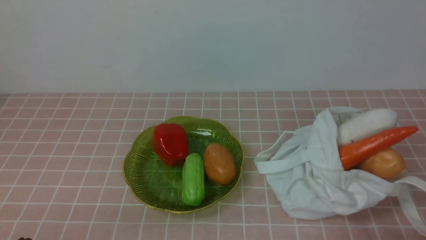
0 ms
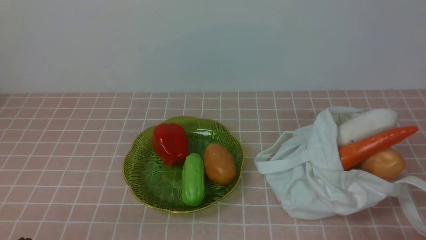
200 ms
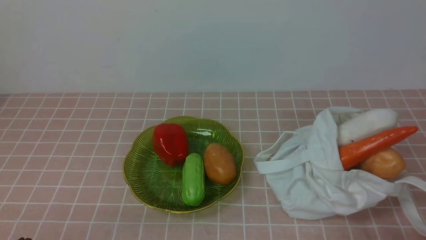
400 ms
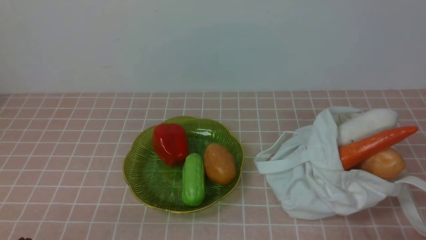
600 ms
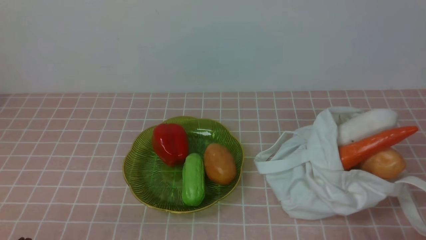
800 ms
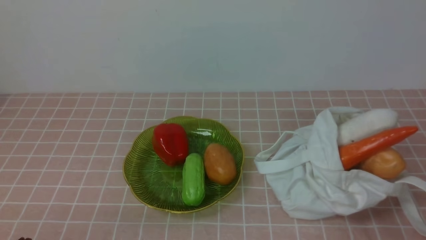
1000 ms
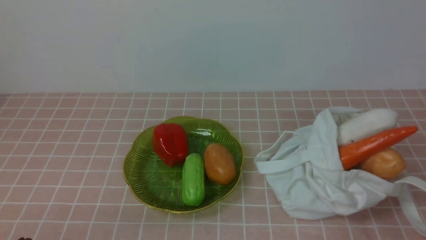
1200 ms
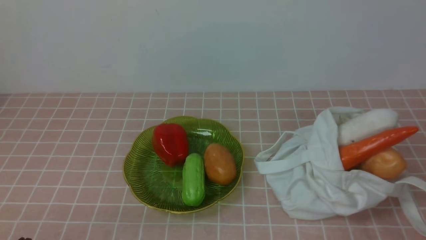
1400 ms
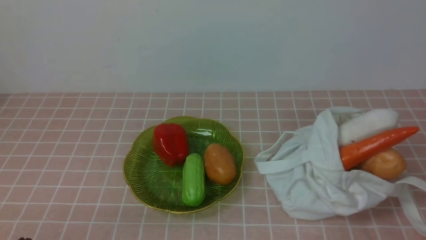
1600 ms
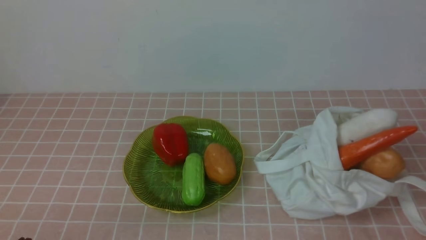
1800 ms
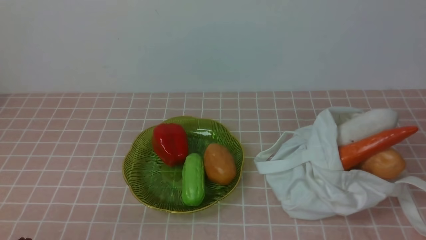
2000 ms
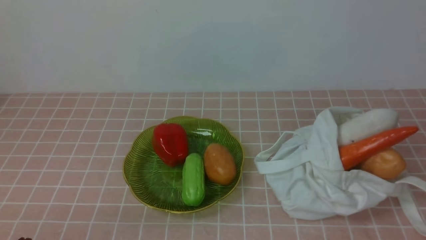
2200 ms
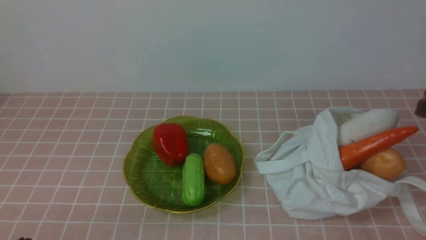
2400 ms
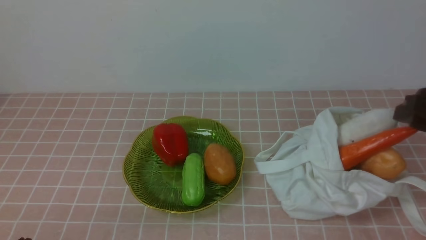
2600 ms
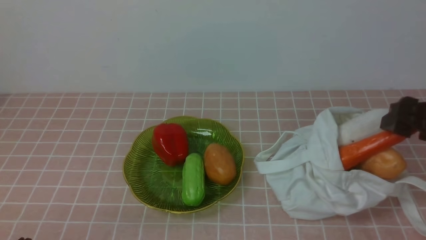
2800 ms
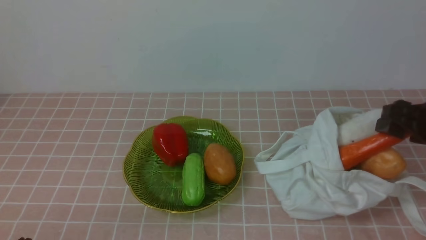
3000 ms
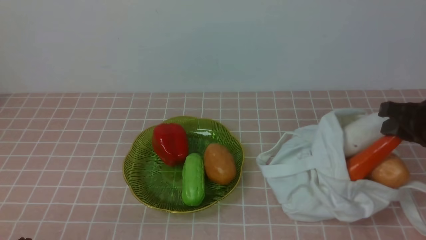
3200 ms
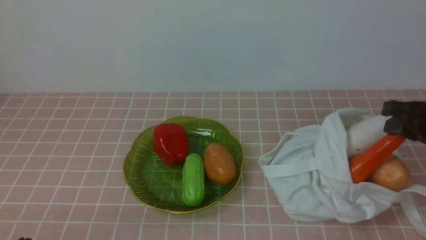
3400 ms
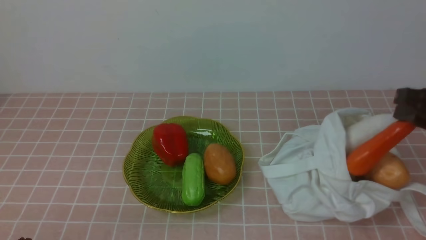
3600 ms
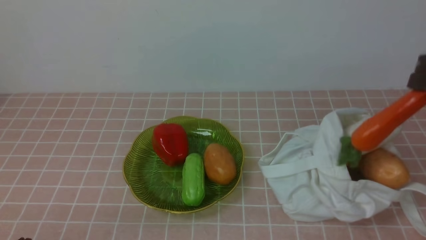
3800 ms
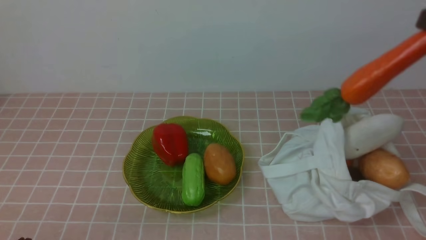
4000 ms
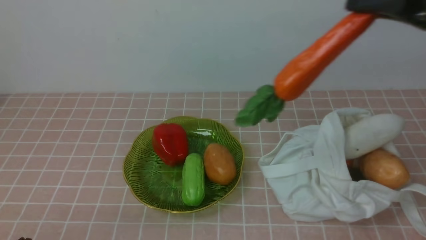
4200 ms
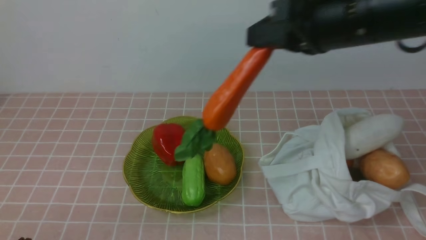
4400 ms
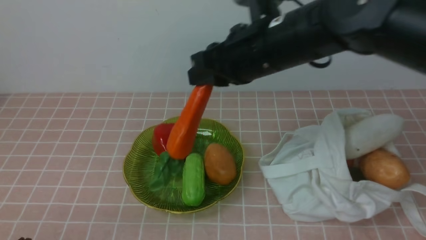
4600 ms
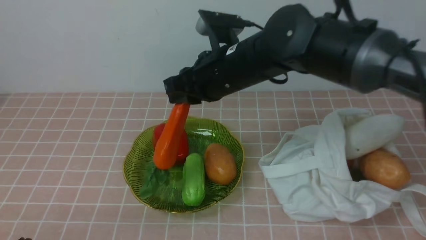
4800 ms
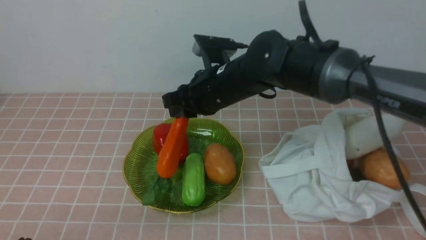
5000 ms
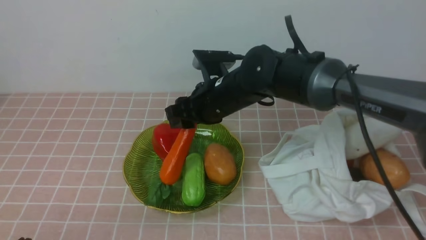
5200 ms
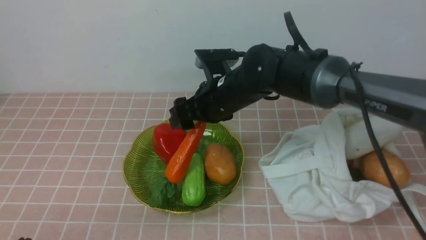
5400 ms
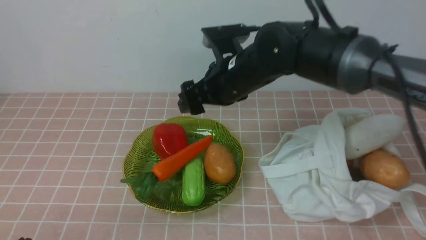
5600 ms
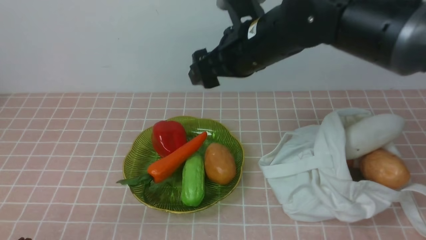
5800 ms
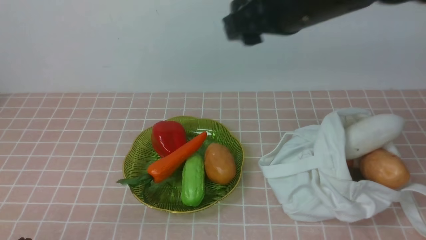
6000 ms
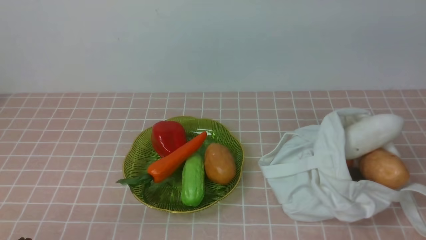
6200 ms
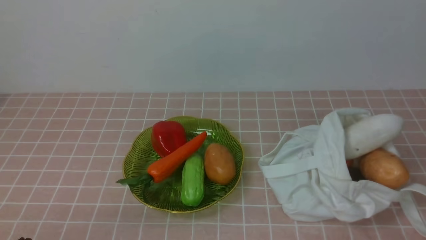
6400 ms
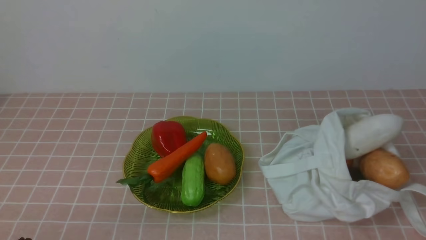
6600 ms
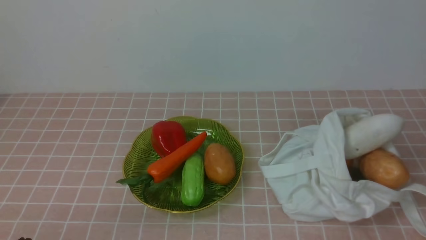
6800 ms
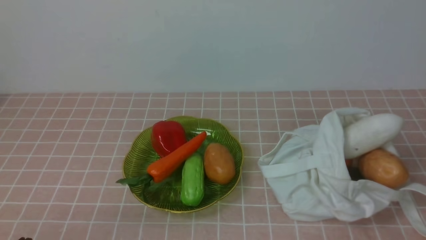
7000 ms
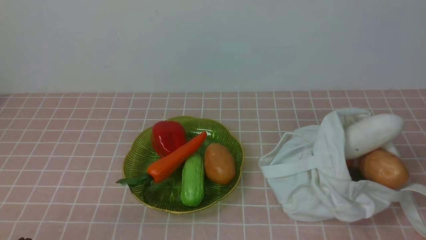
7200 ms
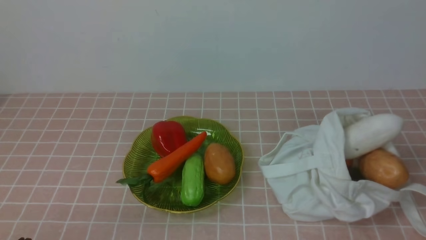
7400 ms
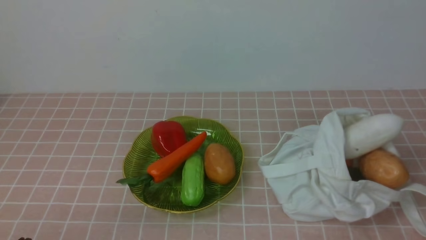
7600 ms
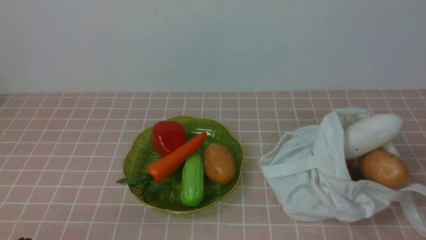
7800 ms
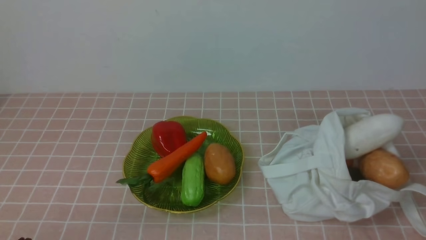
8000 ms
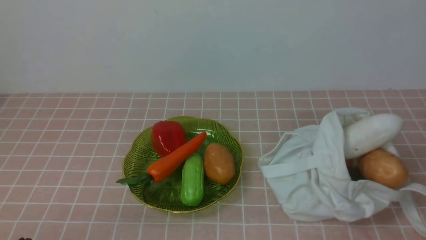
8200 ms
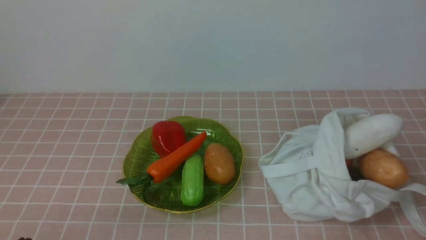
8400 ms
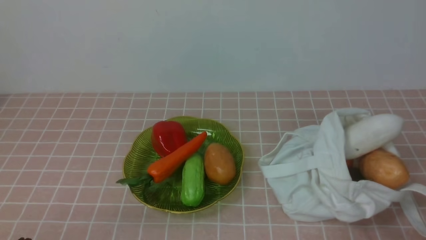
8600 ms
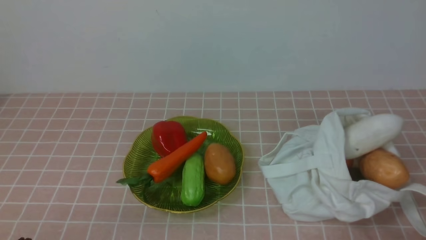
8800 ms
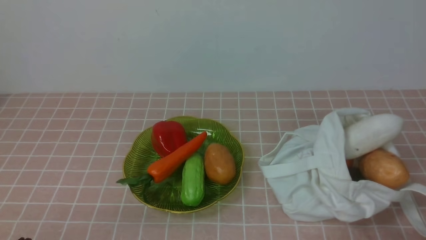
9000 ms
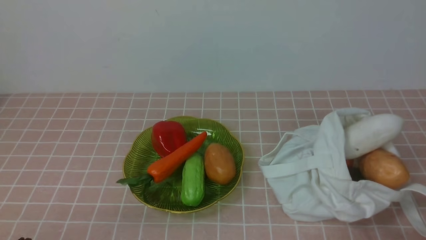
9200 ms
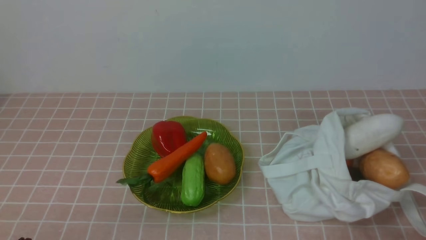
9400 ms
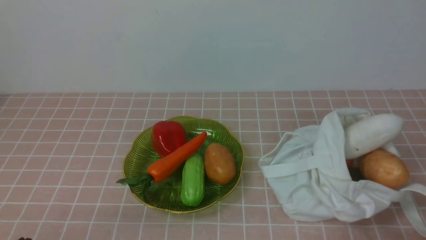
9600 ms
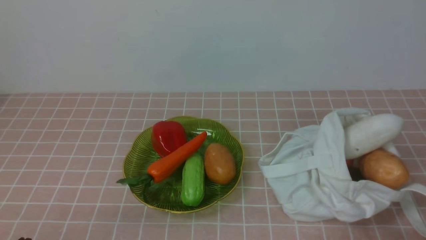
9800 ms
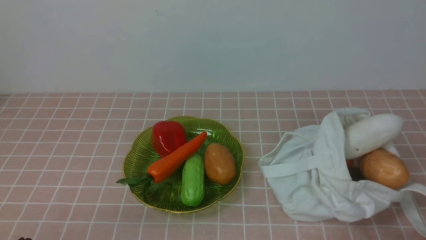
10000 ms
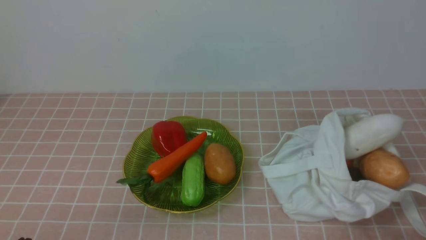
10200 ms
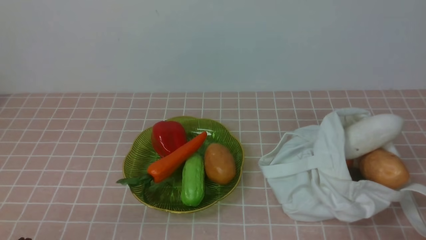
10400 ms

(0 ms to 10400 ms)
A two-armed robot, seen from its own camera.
Task of the whole recording: take vegetables from bag on pink coffee tablecloth place on plate.
Step, 3200 ms - 5600 ms: Place the carrot on the plate with right gripper.
1400 ms - 3000 ms: The right gripper travels forward by approximately 20 cm, and opens up.
3000 ms - 4400 ms: The right gripper shifts roughly 20 cm to the left and upward, and closes.
4400 ms - 6000 ms: The right gripper travels downward and back again, about 15 cm each way, and opens up.
6000 ms - 7400 ms: The right gripper travels backward, to the right and downward by some 35 cm, and closes.
9000 ms - 10400 ms: Neither gripper changes place.
